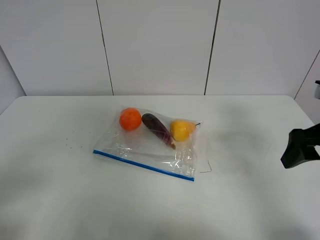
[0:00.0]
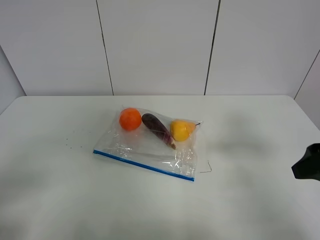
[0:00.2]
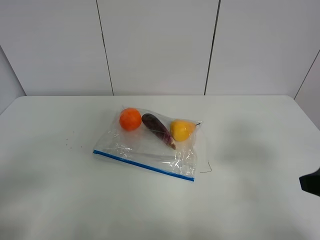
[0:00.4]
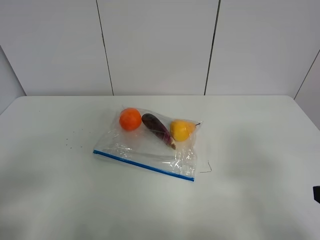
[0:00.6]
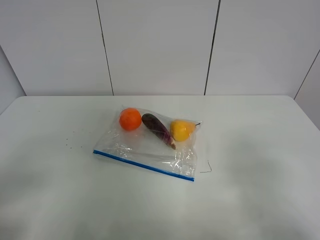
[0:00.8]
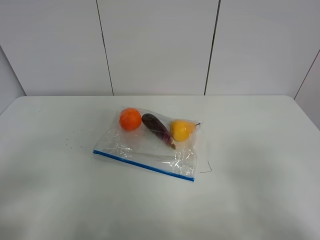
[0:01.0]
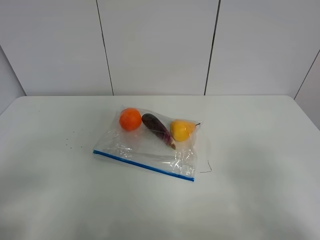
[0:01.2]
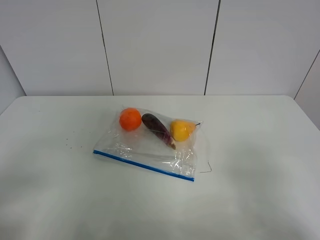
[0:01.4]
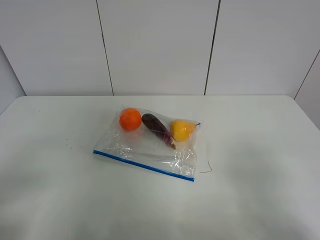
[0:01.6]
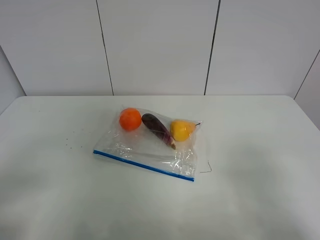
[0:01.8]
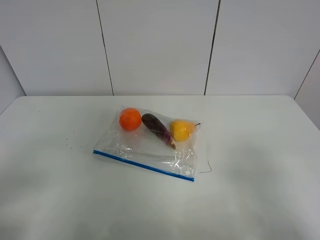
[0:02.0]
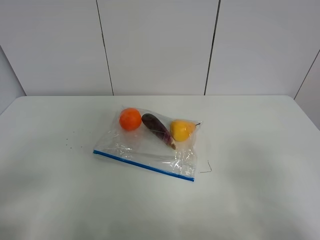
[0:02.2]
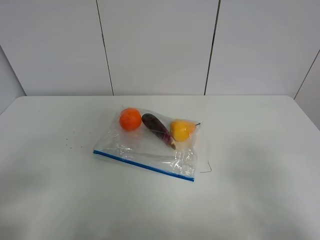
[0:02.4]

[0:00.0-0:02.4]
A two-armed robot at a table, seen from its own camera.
0:00.0 to 0:01.2: The right gripper heads backward, covering approximately 20 cm.
0:01.2 to 0:02.4: Neither gripper changes place.

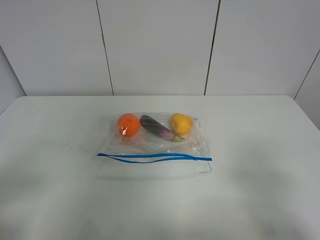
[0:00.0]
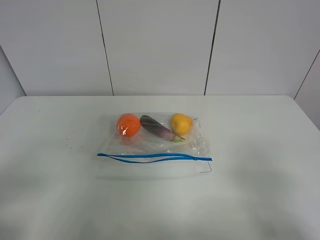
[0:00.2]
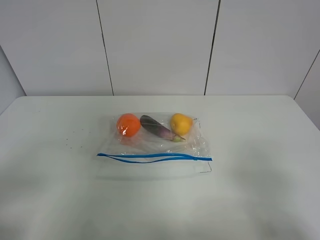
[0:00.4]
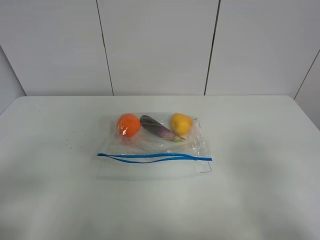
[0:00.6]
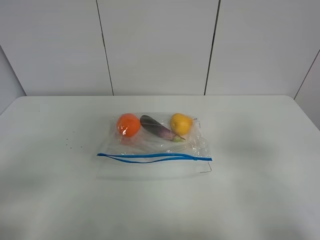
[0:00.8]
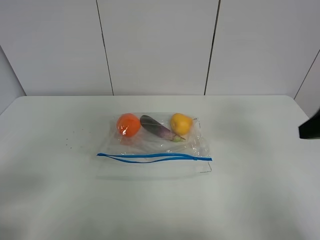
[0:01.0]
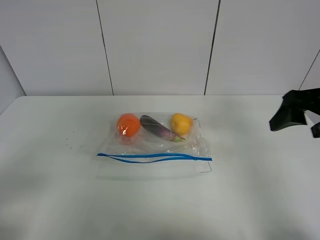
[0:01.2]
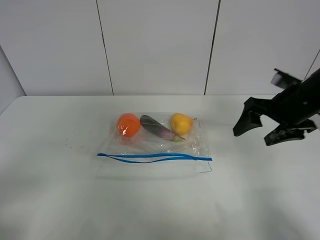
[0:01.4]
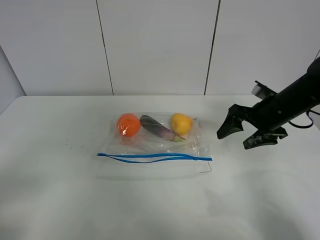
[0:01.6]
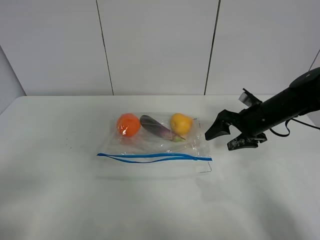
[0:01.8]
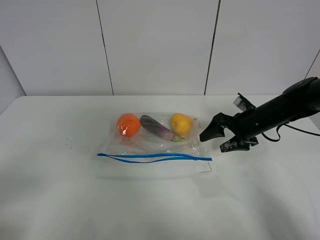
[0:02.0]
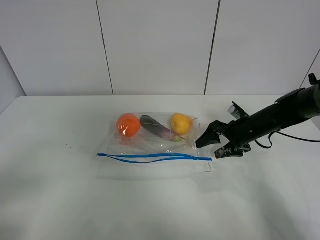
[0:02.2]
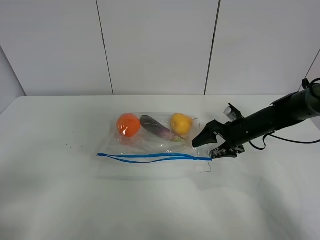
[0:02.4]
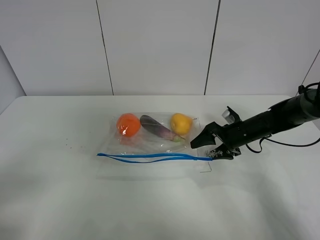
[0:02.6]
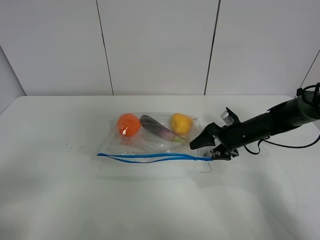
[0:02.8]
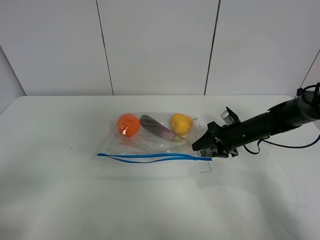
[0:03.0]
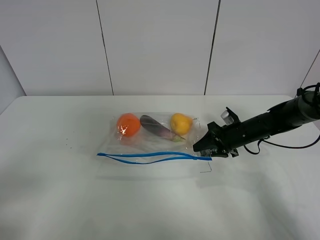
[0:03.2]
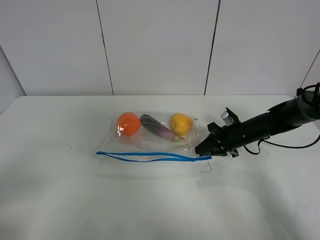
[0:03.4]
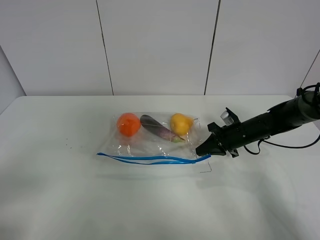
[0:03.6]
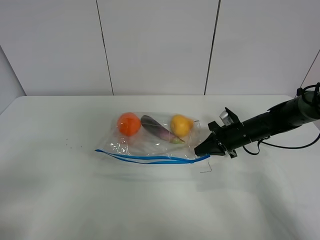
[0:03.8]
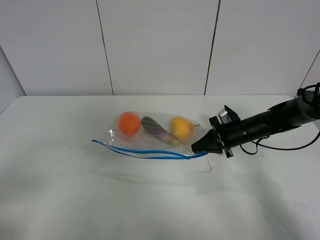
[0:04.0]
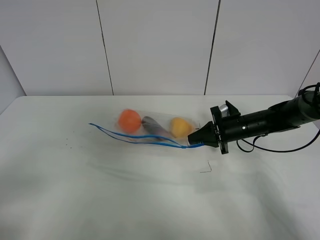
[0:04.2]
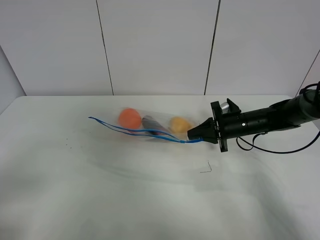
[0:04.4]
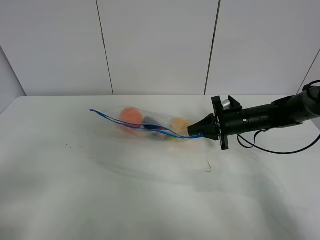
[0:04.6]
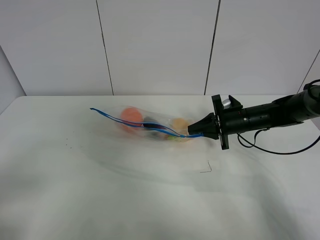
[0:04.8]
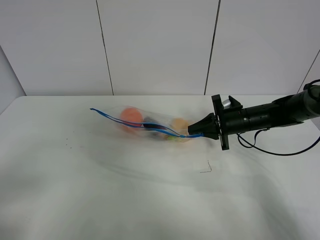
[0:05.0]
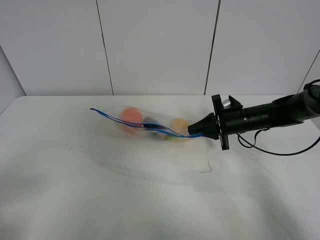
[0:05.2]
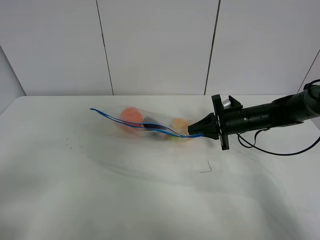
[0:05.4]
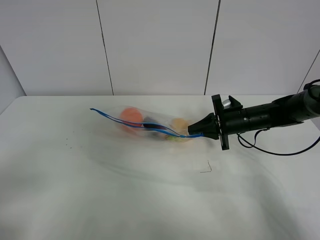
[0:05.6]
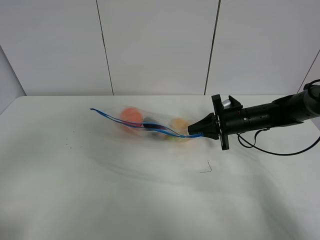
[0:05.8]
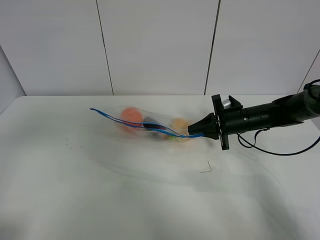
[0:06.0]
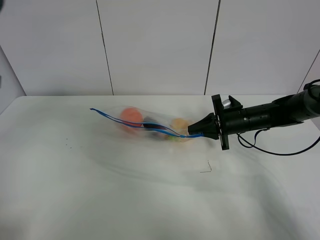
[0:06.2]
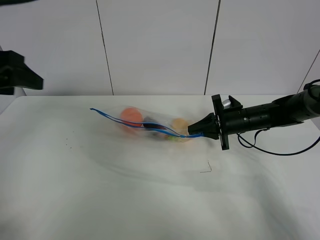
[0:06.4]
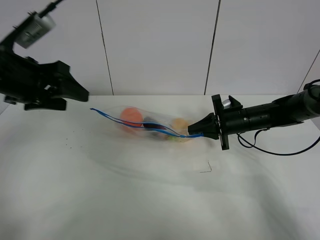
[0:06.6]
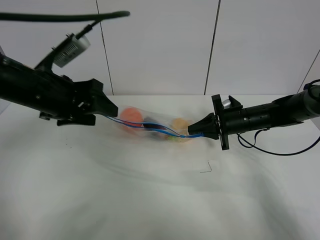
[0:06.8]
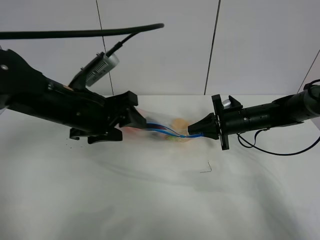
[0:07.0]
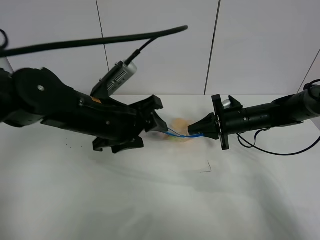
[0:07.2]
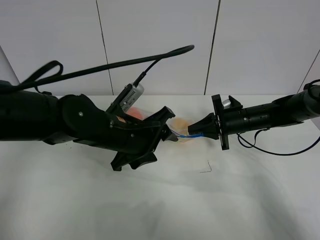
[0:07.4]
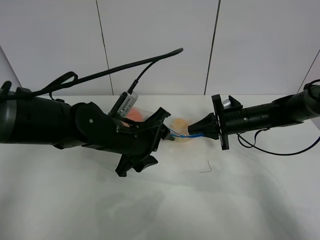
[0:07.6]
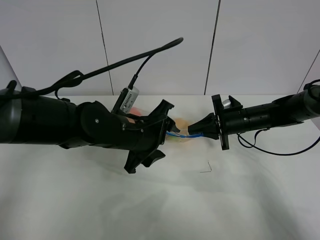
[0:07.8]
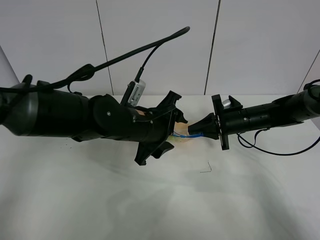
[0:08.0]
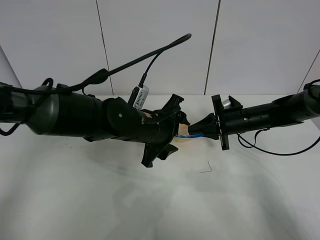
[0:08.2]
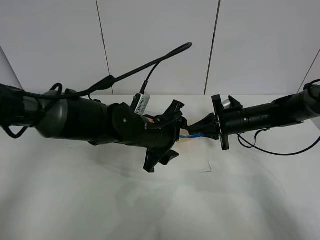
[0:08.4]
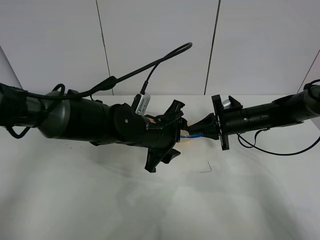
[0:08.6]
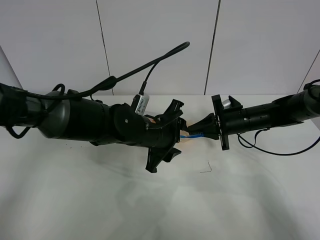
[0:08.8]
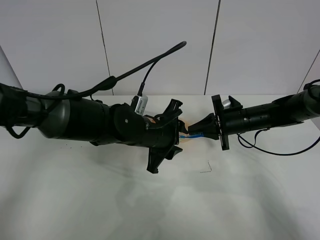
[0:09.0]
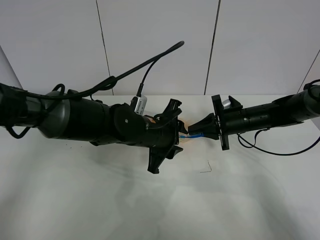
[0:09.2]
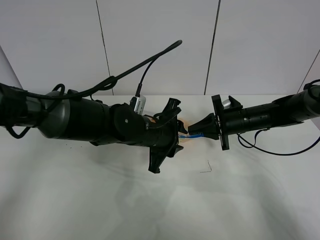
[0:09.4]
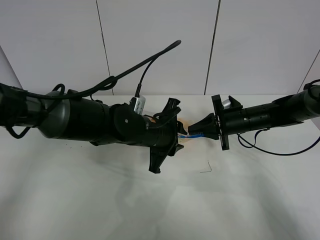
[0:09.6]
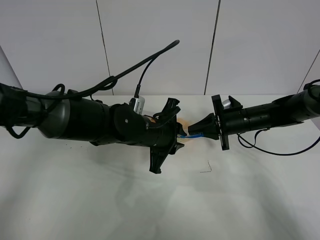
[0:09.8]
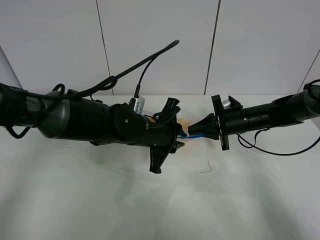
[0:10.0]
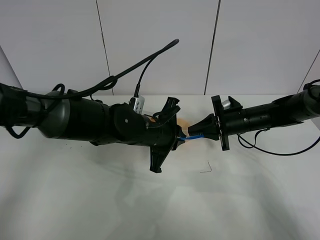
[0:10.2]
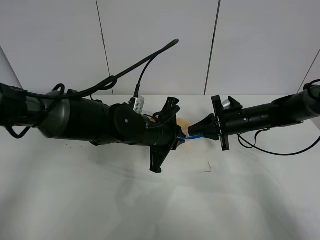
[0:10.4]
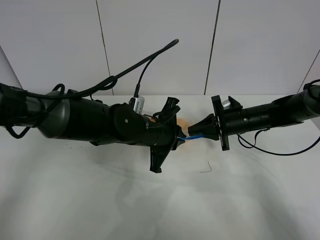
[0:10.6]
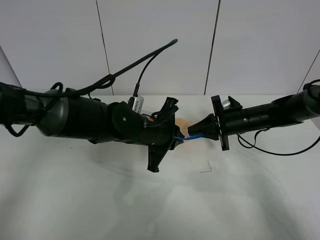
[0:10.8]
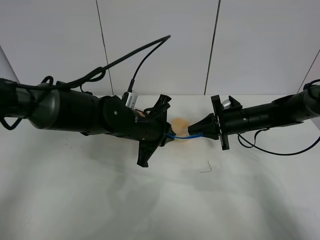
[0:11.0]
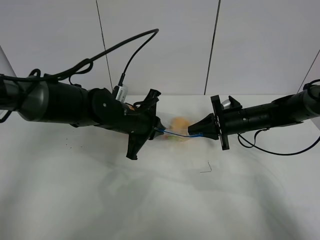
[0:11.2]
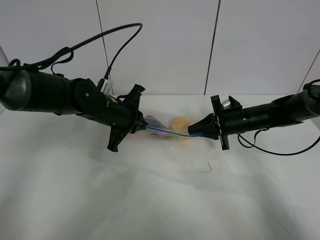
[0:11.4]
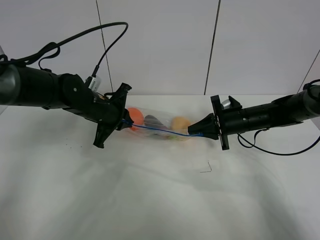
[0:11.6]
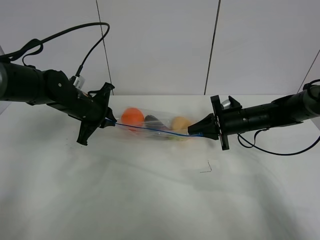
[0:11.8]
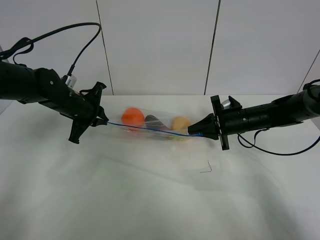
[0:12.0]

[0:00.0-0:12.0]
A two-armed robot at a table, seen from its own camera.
Step, 0:00.0 to 0:03.4: Grasp the fruit bag with right gripper.
Step, 0:03.6 to 0:05.0: Lift the fruit bag with your right gripper.
0:00.0 to 0:01.6: The right gripper goes approximately 30 cm forward.
0:01.6 to 0:03.0: The right gripper shifts about 10 cm downward, and closes its fingers.
0:03.0 to 0:04.4: The right gripper closes up.
0:04.4 to 0:06.0: The left gripper is displaced upward and forward by about 15 cm.
0:06.0 to 0:07.6: The left gripper shifts about 35 cm to the right, downward and forward.
0:07.6 to 0:09.0: The left gripper ends up approximately 5 cm from where it was.
0:09.0 to 0:10.4: The left gripper closes up.
0:10.4 to 0:12.0: The left gripper moves to the left and forward, about 20 cm.

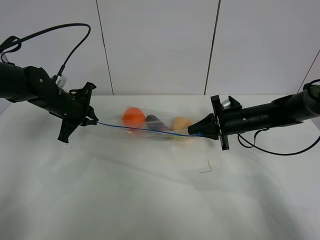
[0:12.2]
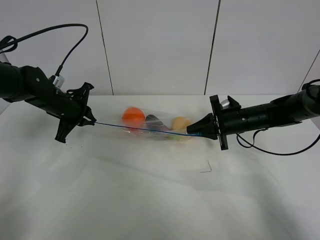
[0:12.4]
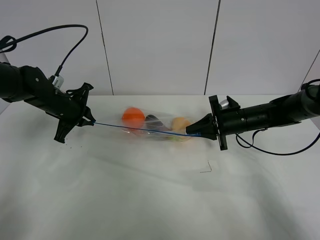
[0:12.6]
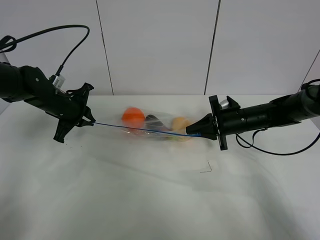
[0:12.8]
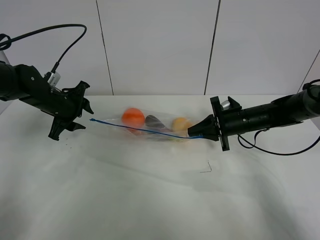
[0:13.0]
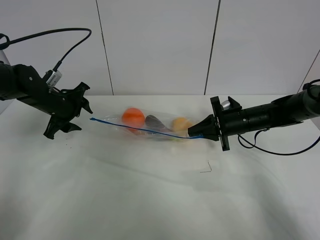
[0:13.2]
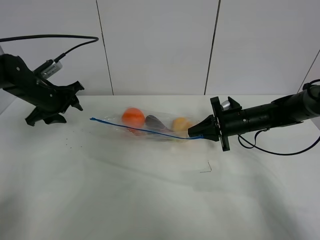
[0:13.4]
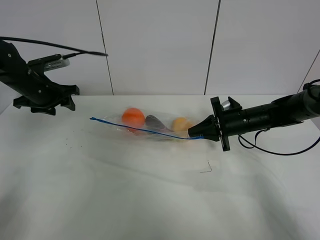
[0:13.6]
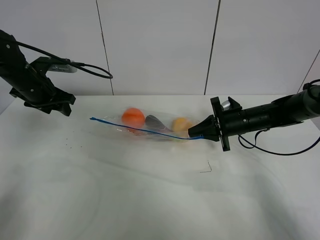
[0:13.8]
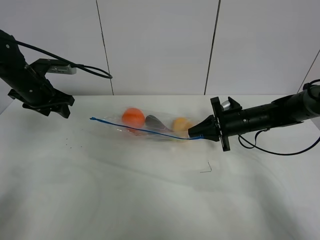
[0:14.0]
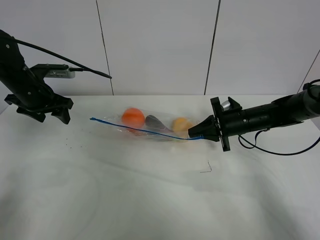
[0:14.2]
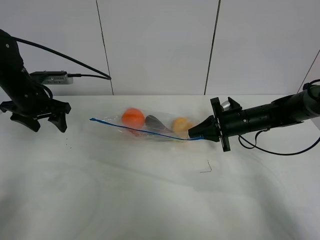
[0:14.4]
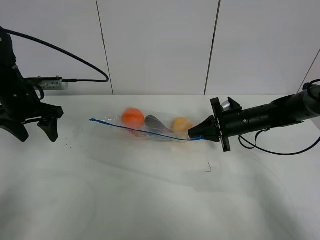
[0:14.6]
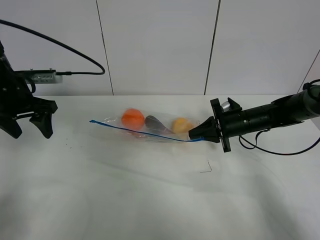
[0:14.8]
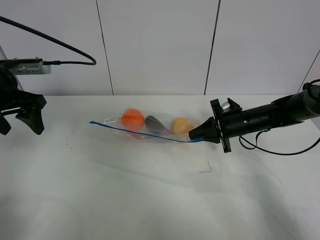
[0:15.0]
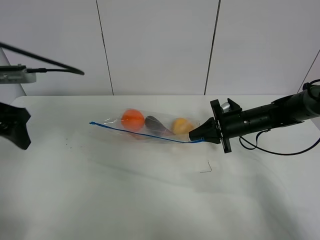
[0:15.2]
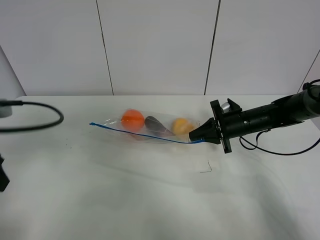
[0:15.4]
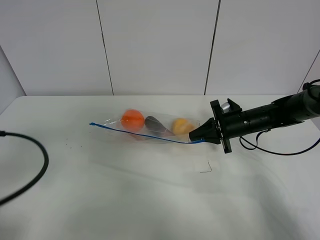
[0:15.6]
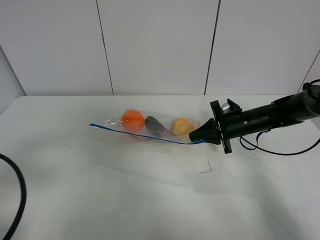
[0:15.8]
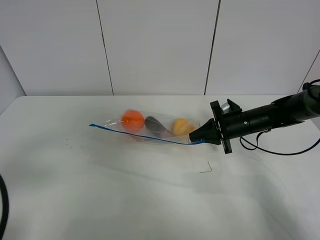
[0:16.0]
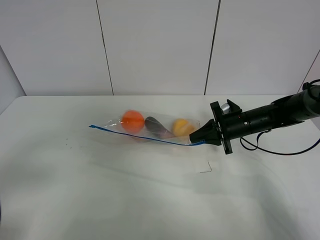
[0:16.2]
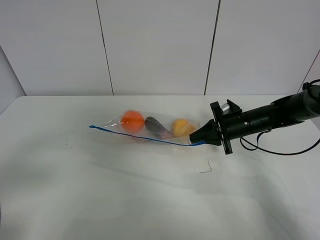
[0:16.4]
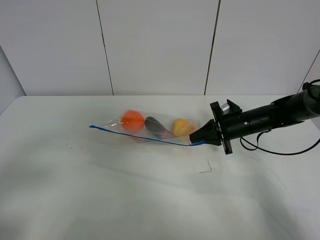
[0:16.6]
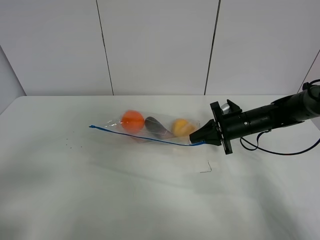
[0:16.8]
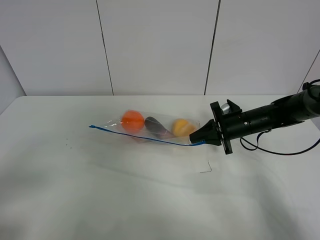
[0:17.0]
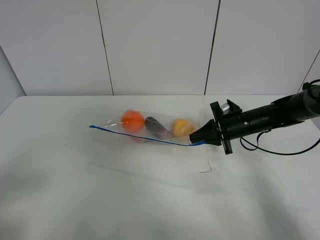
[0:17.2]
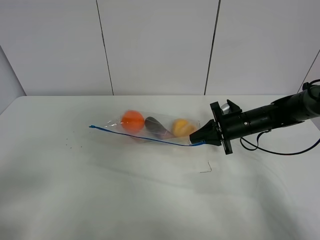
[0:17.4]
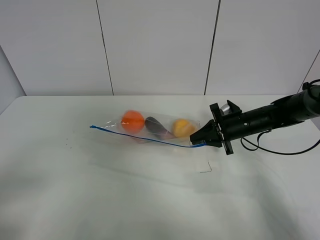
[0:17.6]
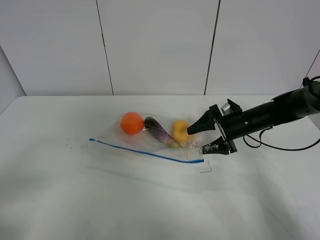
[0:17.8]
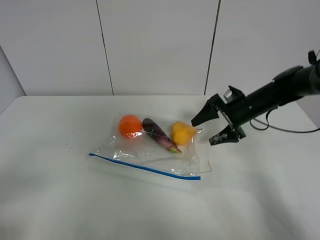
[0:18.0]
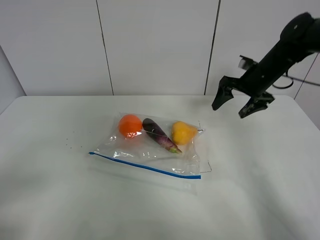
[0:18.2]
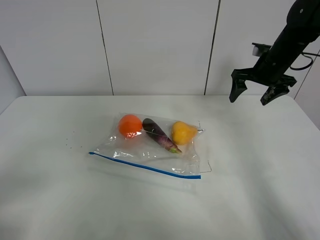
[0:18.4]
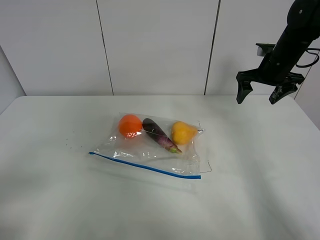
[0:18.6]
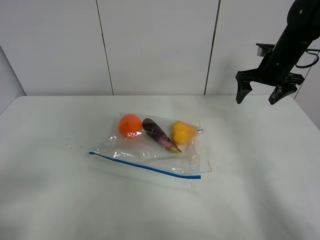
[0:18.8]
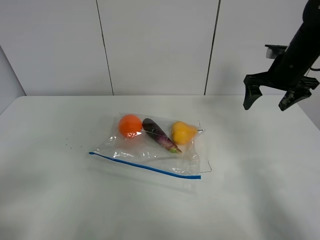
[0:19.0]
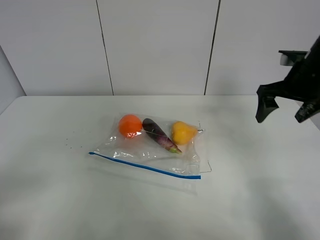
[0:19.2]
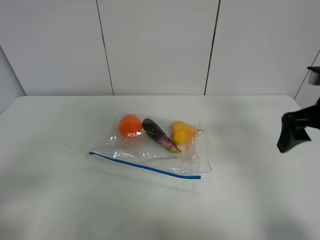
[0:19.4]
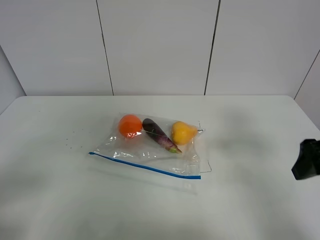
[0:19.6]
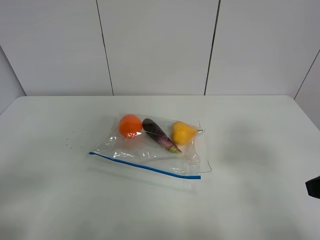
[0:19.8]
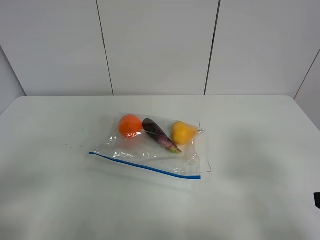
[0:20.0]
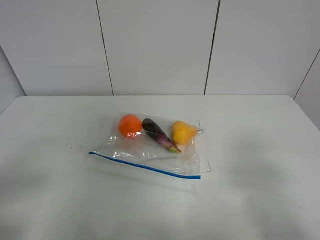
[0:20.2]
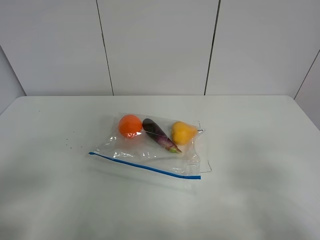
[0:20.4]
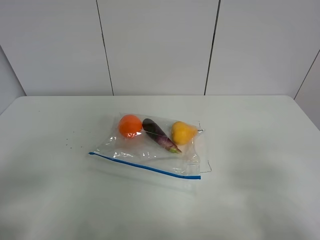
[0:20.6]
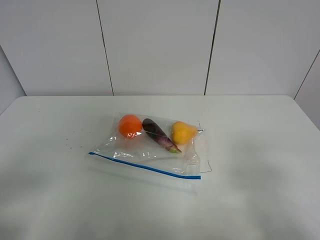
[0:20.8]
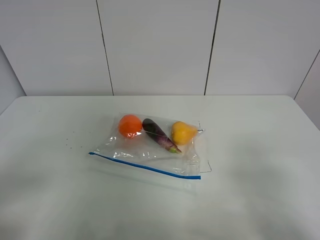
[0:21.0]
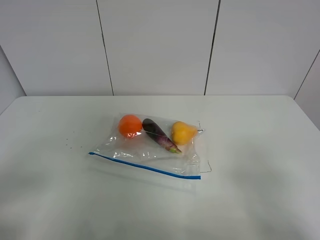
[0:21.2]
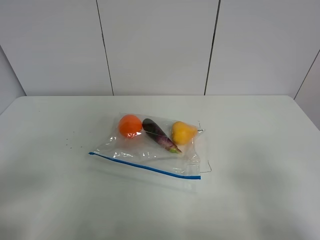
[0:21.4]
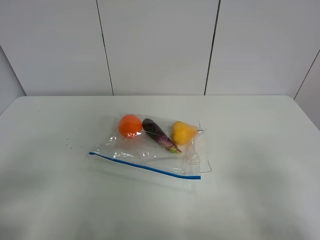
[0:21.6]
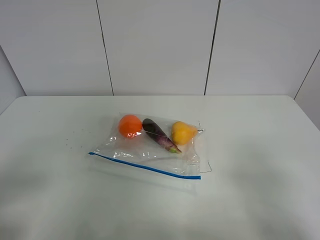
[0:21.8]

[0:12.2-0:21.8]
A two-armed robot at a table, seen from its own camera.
0:12.2 to 0:13.8: The left gripper shifts some 5 cm to the left, and opens its fingers.
0:13.8 to 0:15.4: The left gripper goes roughly 25 cm backward.
0:15.4 to 0:17.0: The left gripper travels backward by roughly 15 cm.
0:17.0 to 0:18.6: The right gripper travels upward, forward and to the right by approximately 15 cm, and opens its fingers.
0:18.6 to 0:20.2: The right gripper travels backward by roughly 40 cm.
